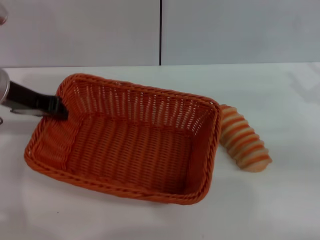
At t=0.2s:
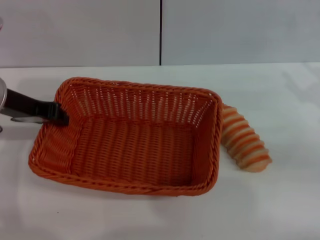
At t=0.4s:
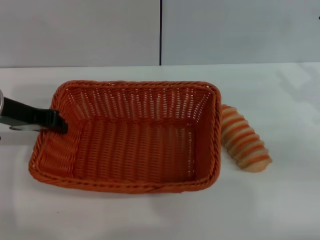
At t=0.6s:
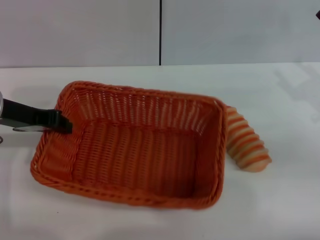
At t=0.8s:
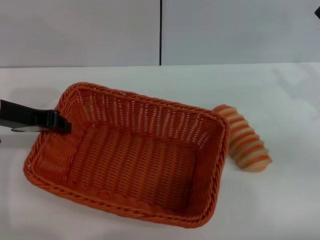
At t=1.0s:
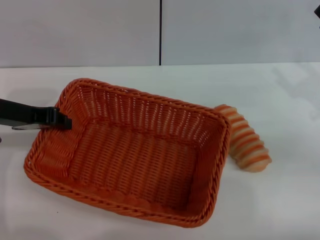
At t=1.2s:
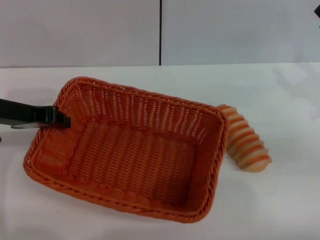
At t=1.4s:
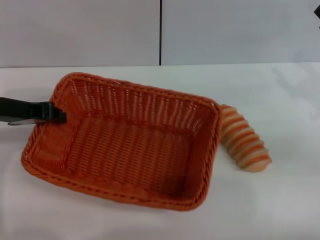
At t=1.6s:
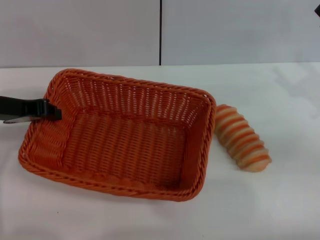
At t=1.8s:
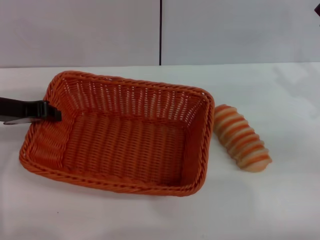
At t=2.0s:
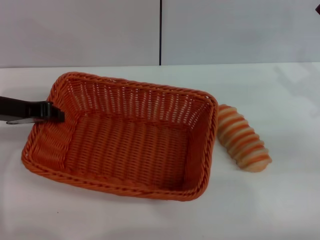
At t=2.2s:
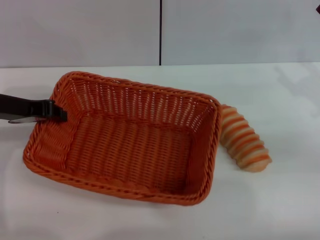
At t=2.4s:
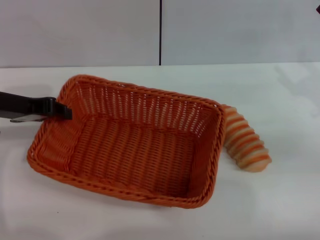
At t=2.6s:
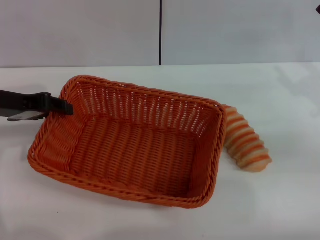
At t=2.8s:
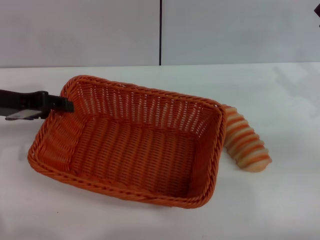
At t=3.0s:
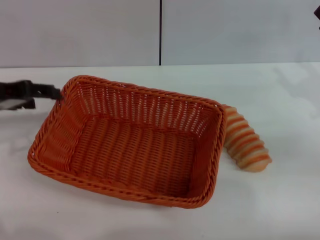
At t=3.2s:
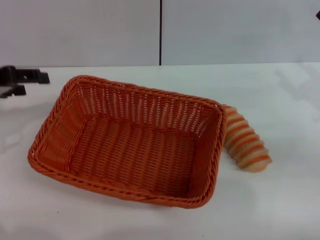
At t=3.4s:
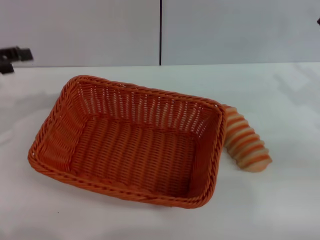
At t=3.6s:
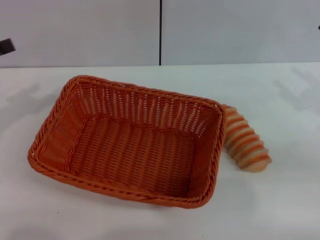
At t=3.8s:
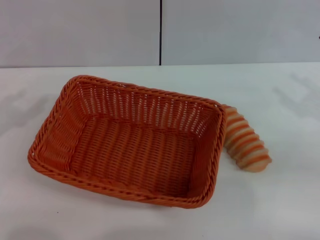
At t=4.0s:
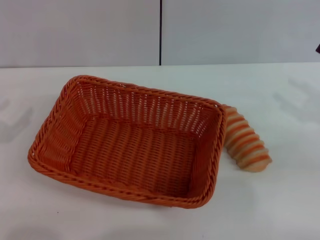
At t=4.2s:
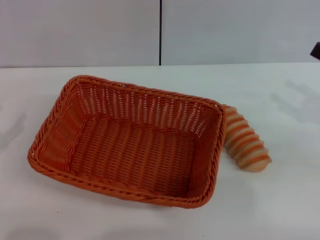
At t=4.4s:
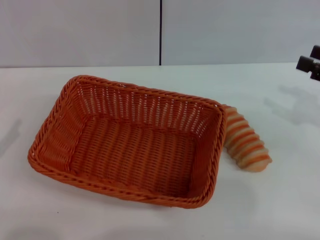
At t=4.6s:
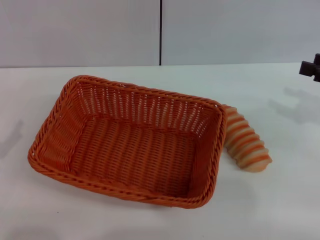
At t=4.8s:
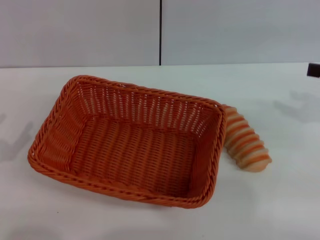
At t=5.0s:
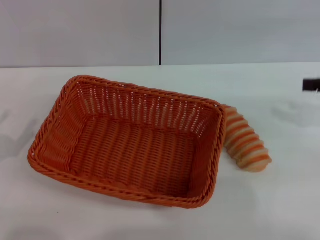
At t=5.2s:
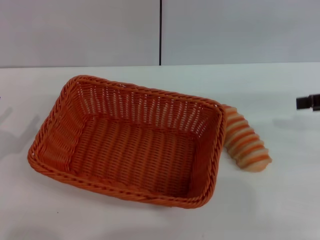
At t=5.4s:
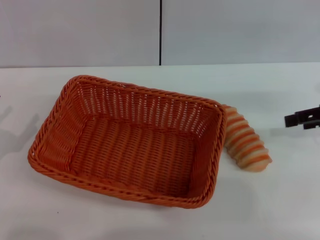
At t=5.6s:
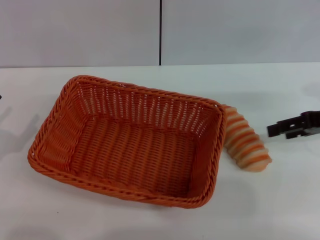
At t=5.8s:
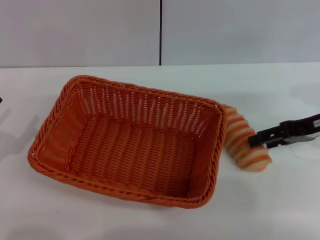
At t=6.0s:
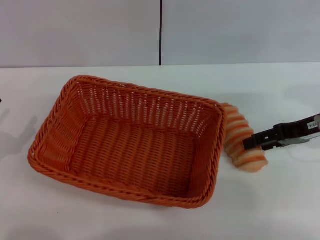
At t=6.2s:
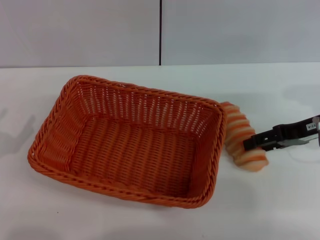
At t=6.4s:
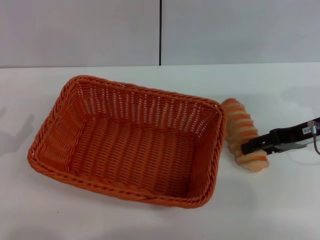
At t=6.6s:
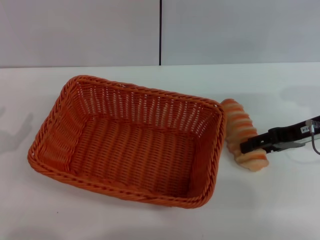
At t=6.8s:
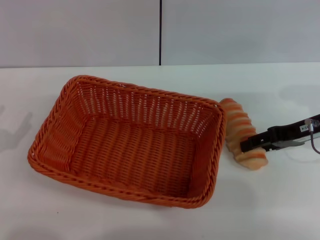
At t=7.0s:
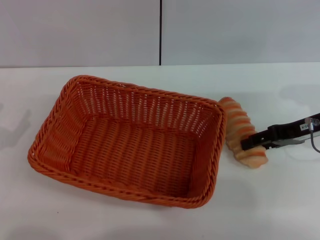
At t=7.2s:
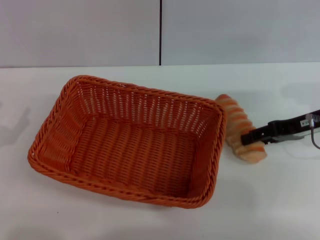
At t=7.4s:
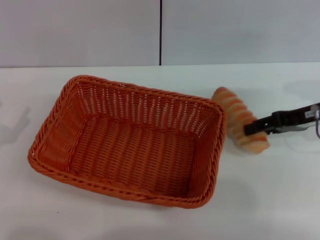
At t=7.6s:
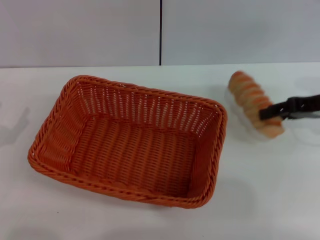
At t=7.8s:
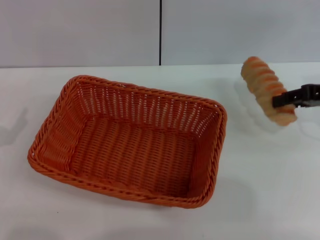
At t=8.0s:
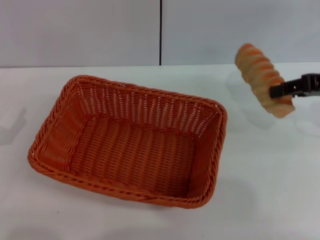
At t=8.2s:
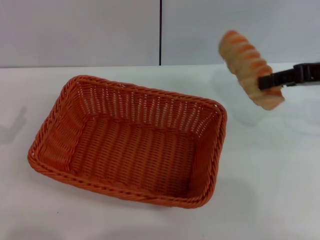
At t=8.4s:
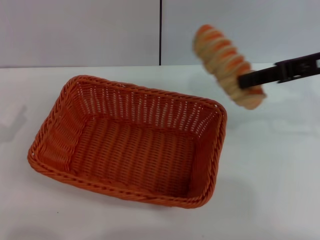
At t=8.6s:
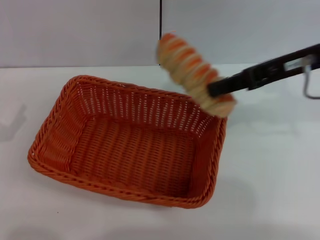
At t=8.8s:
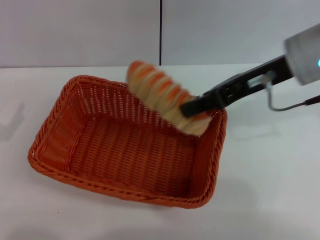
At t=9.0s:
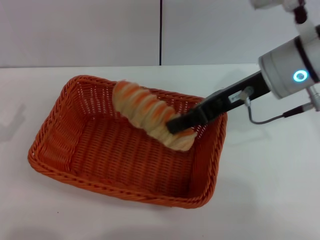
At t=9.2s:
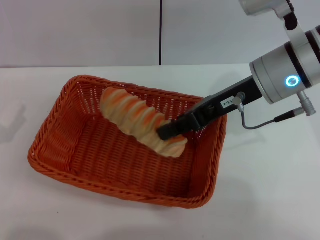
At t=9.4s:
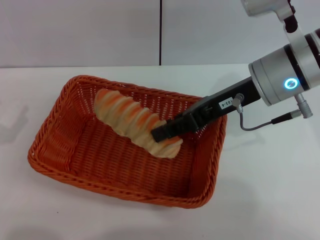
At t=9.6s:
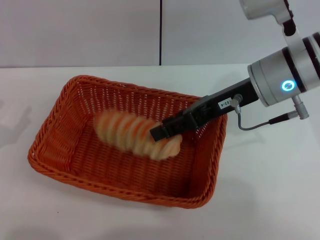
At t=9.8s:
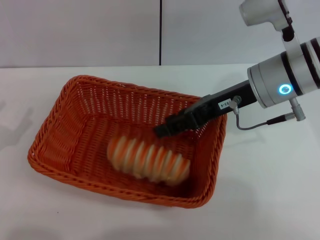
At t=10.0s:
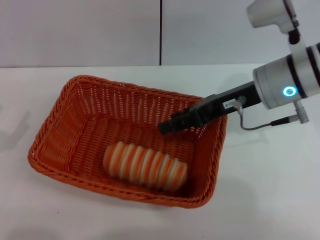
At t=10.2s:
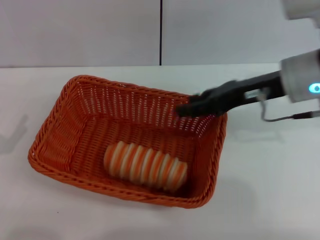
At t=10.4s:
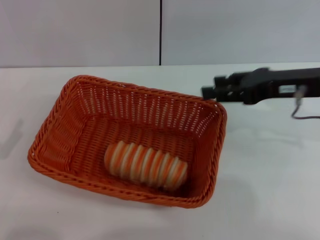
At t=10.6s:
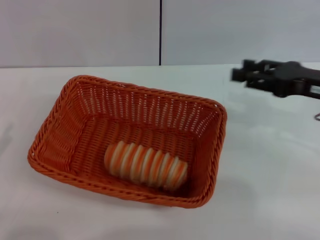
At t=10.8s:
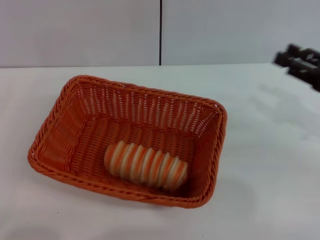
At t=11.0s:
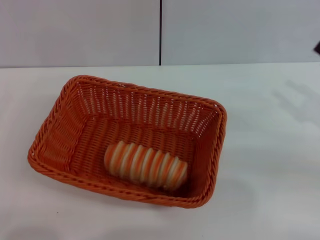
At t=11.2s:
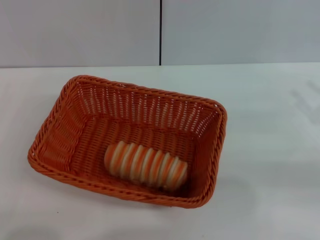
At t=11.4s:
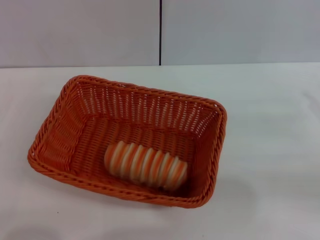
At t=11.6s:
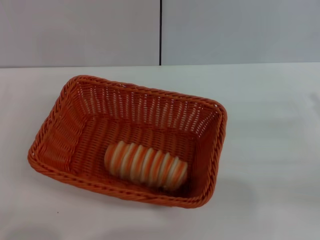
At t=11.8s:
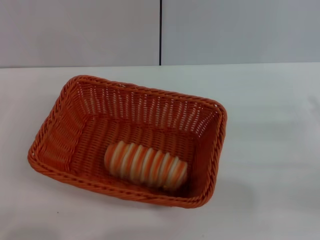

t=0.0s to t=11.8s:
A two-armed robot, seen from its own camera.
Step, t=0.0s to t=3.2s: Place the light basket in the center of view with the left gripper.
Step, t=3.4s to t=7.8s: Pick up the long bread with the right gripper.
Step, t=8.0s to t=10.2s: Place the long bread into the light basket with the right gripper.
t=0.0s to t=1.4s: The grippers make only small movements.
t=1.4s to t=3.0s: The left gripper opens its fingers.
t=3.0s to t=4.4s: The left gripper is displaced backward, to the left and downward by some 20 cm.
t=4.4s to t=6.0s: The right gripper moves to the left, roughly 5 cm.
t=6.0s to t=7.4s: The grippers make only small movements.
t=7.4s to t=8.8s: The right gripper goes some 15 cm to the left and upward, and closes its fingers.
t=8.8s to t=10.4s: The right gripper moves to the right, some 5 cm, and opens.
t=10.4s to t=11.8s: The right gripper moves to the right, downward and backward, about 20 cm.
